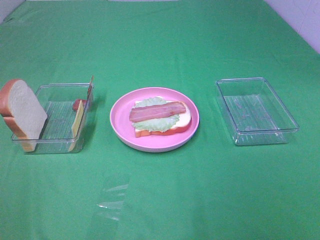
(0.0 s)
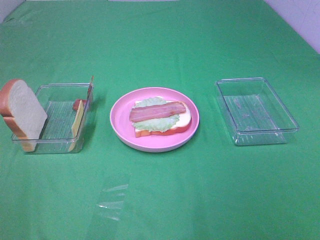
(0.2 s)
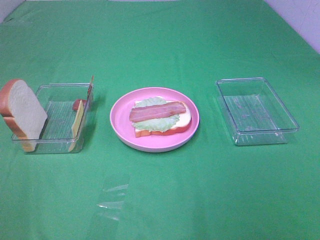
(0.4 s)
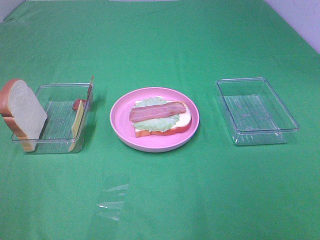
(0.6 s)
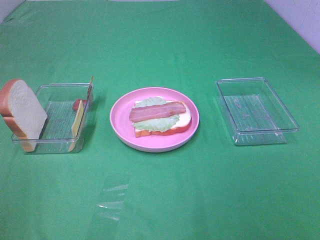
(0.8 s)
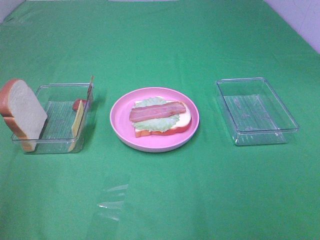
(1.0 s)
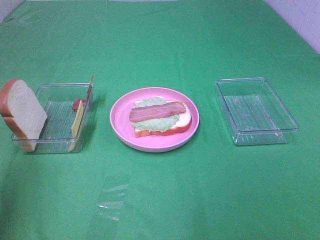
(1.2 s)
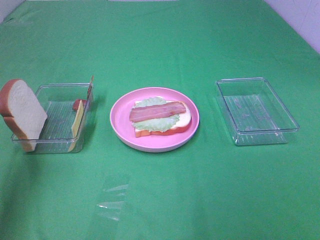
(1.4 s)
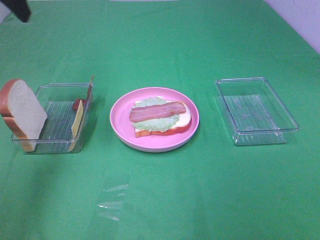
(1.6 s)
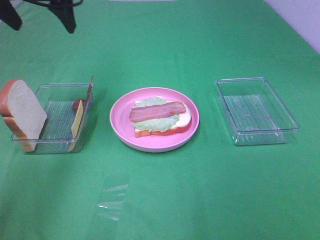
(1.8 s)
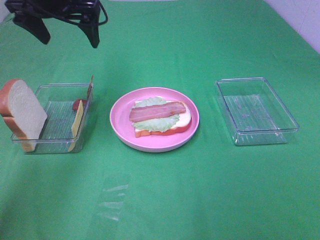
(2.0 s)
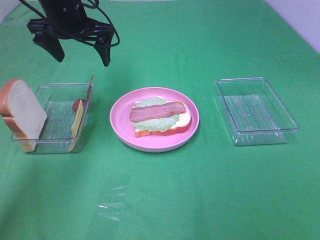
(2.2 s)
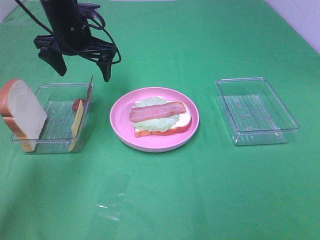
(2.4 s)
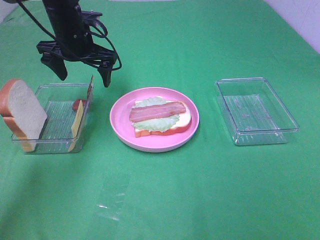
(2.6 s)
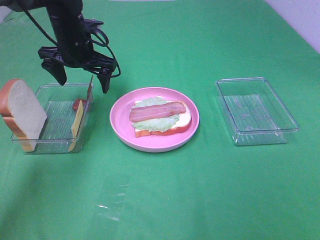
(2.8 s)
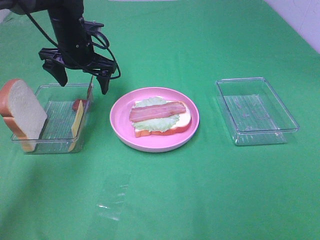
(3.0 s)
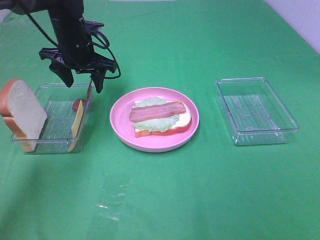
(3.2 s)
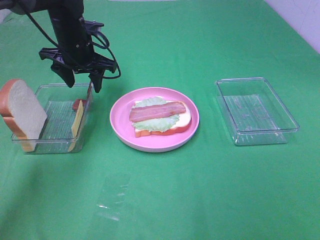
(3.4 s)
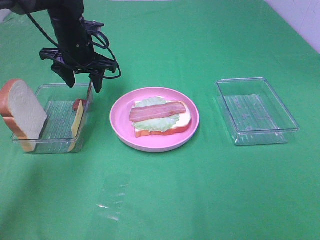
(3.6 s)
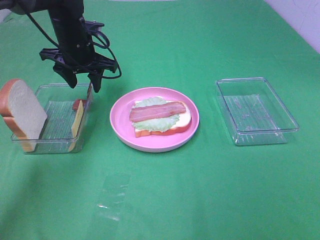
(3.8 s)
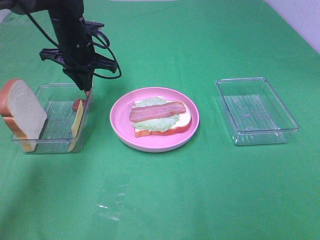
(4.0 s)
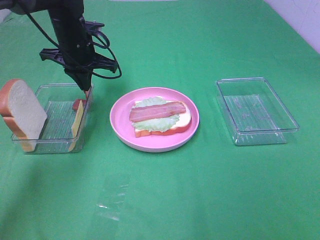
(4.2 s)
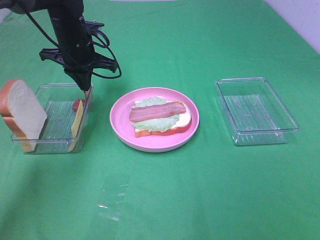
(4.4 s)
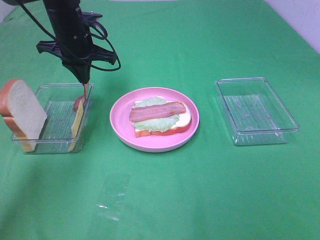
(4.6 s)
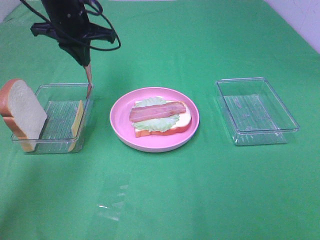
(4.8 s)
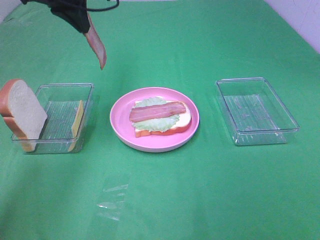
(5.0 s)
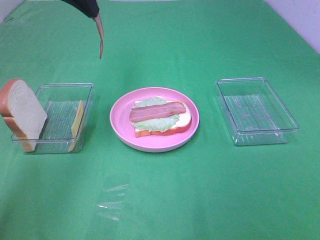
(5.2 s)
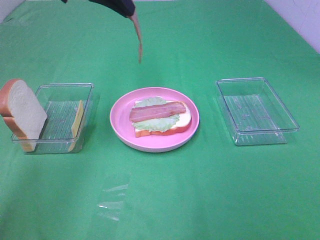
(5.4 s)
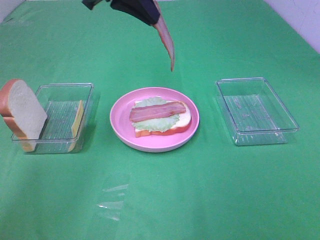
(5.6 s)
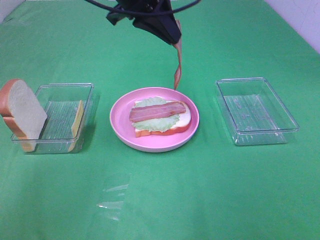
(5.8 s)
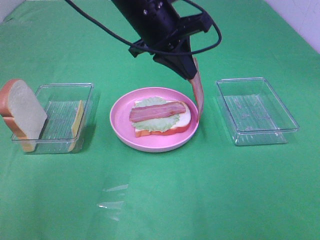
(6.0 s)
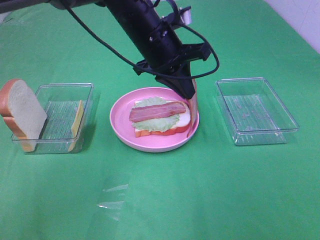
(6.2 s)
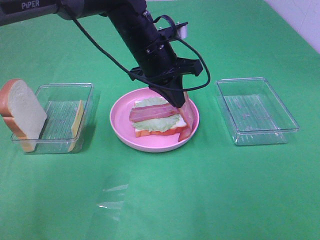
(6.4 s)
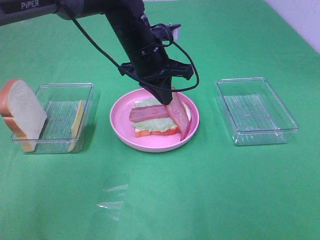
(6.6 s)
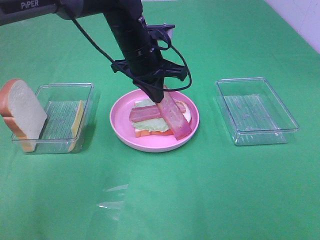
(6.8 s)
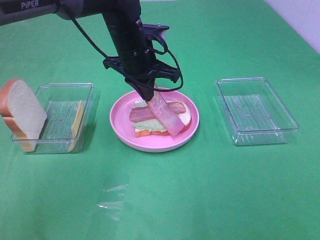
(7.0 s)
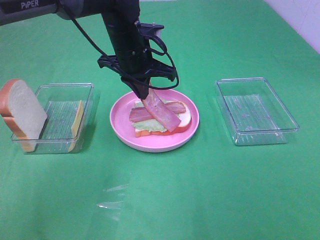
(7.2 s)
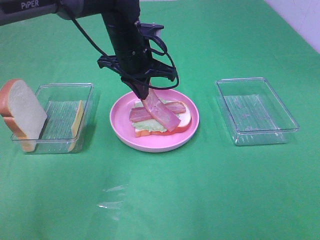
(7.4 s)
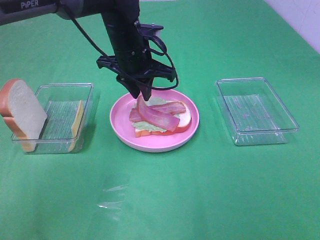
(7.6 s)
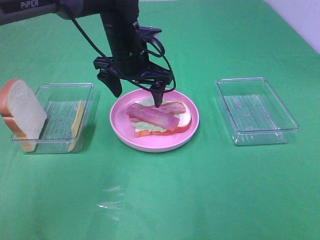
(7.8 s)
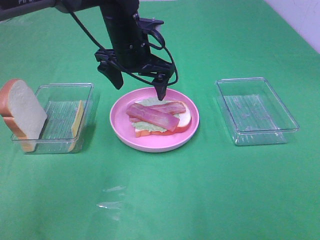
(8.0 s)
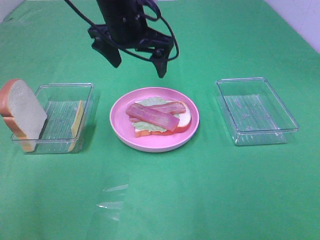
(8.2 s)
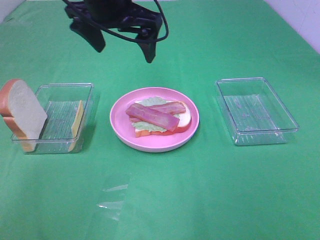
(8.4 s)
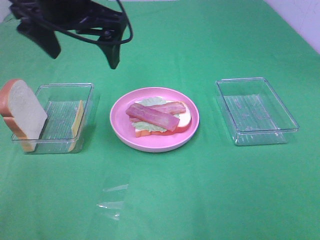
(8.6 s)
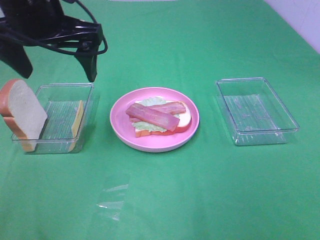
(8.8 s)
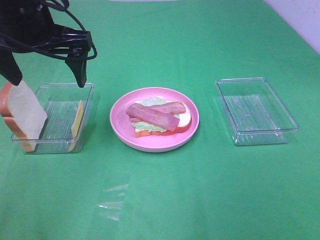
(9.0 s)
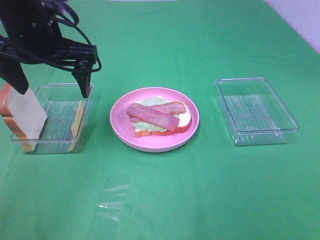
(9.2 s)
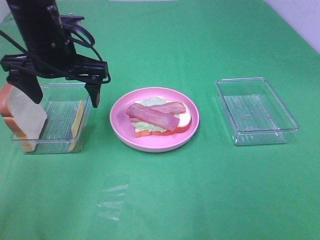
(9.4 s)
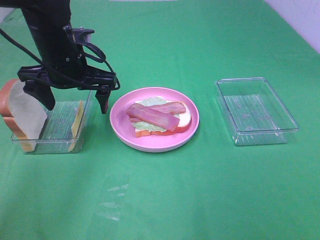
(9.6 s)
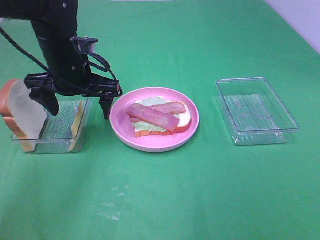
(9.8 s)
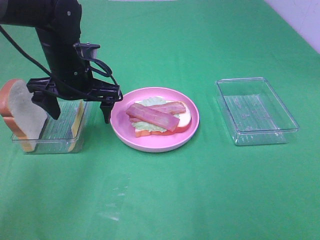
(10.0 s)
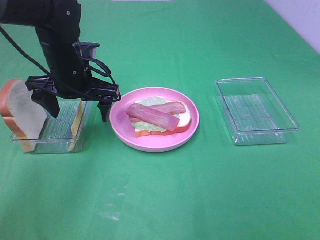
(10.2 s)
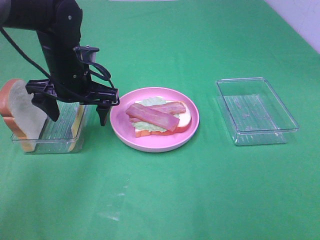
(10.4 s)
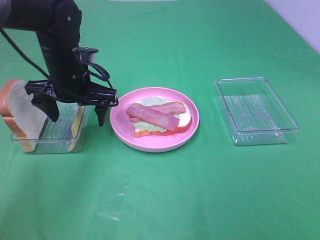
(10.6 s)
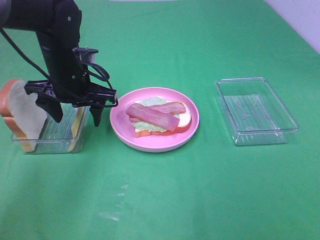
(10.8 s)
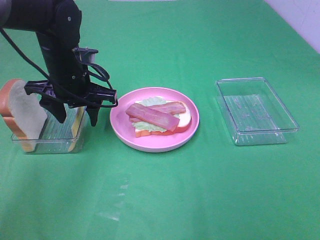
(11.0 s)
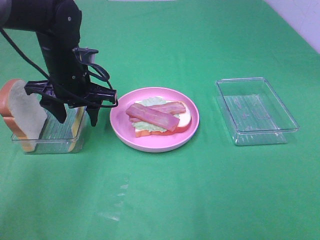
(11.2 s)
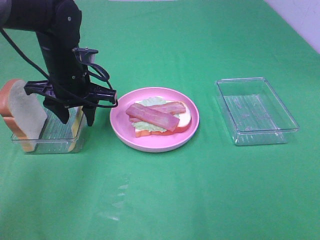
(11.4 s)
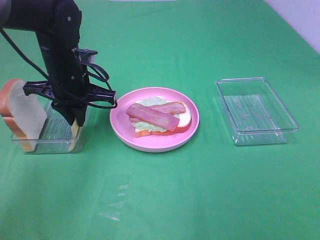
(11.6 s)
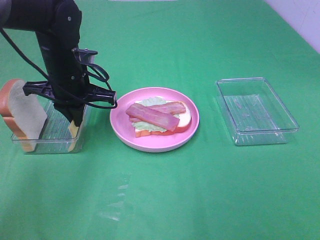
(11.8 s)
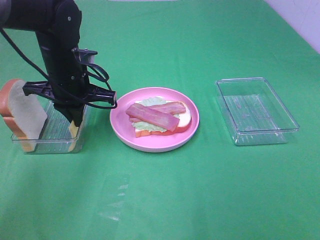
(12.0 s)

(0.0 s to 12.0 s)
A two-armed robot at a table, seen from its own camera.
Task of the whole recording: Make sandwiches.
Step, 0.0 s - 4.2 s: Left hand:grab the bacon.
Step, 4.4 s - 7.6 s: Left hand:place bacon on bacon.
Step, 7.8 s - 12.0 s: Left hand:grab the cheese slice.
0.0 s - 1.6 s: The left gripper goes roughly 35 cm forward.
1.6 s - 3.0 s: The left gripper shifts some 25 cm downward, forward and to the right.
3.0 s - 4.4 s: The left gripper closes up.
4.4 s - 6.0 s: The left gripper goes approximately 20 cm to the right, backward and upward.
6.0 s - 7.6 s: The left gripper shifts about 5 cm downward, and opens.
7.6 s - 9.0 s: The left gripper heads to the left, upward and backward, covering some 20 cm, and opens its fingers.
9.0 s - 10.4 s: The left gripper heads downward and forward, covering about 15 cm.
10.4 s - 12.0 s: The left gripper closes up.

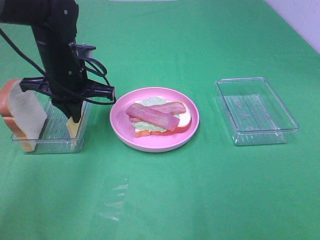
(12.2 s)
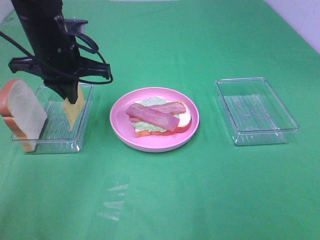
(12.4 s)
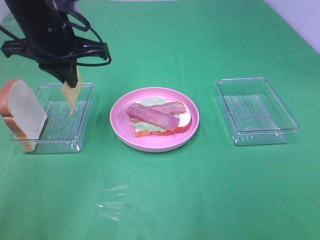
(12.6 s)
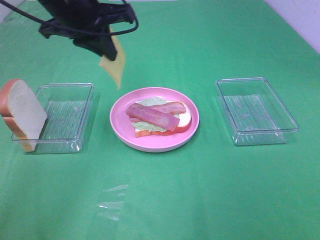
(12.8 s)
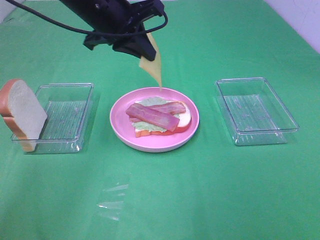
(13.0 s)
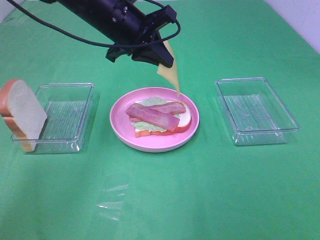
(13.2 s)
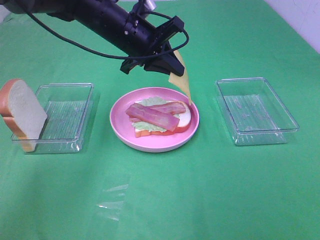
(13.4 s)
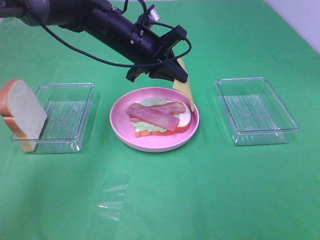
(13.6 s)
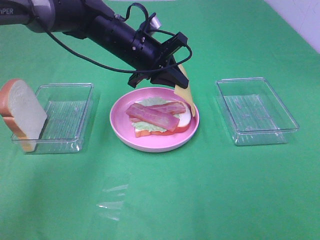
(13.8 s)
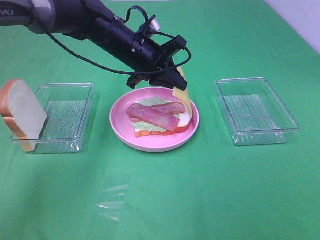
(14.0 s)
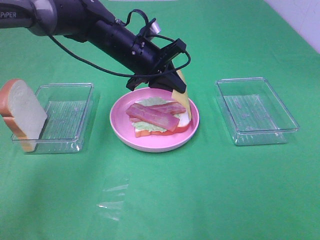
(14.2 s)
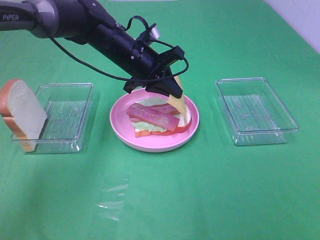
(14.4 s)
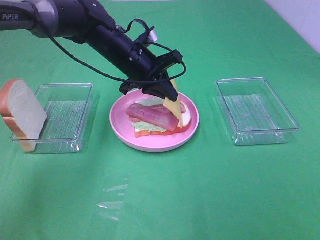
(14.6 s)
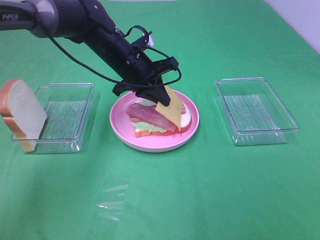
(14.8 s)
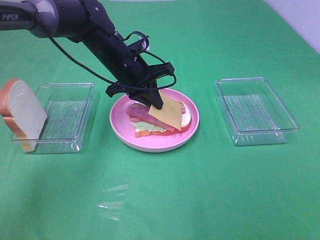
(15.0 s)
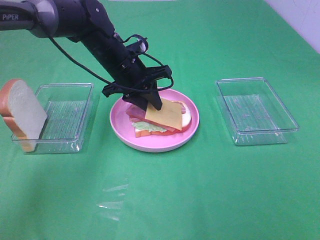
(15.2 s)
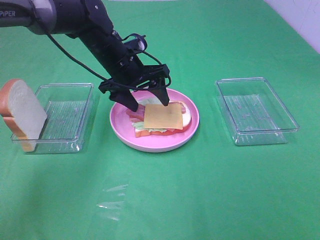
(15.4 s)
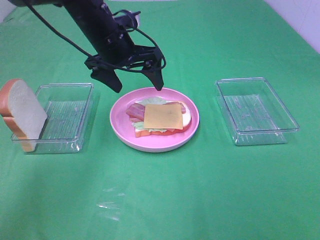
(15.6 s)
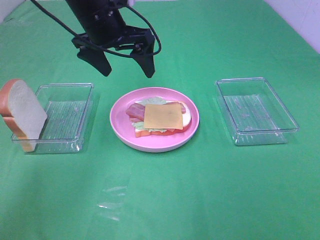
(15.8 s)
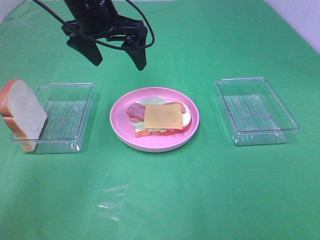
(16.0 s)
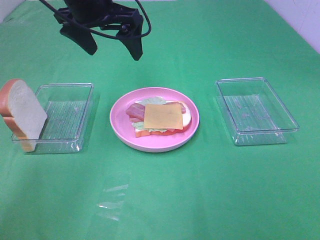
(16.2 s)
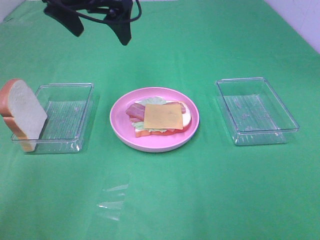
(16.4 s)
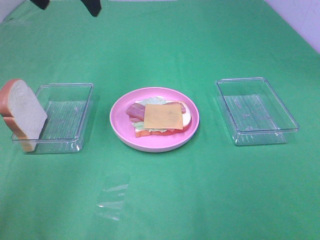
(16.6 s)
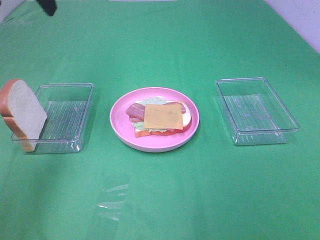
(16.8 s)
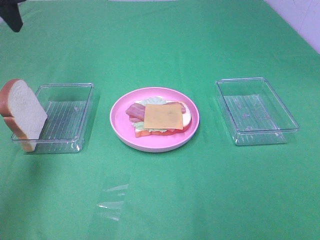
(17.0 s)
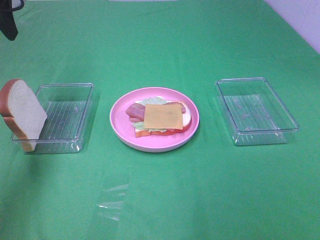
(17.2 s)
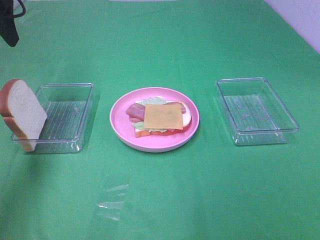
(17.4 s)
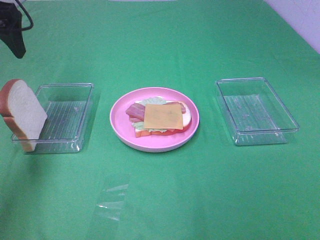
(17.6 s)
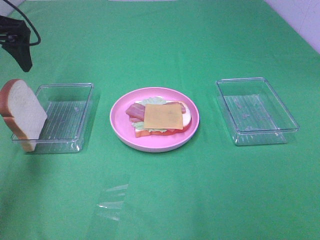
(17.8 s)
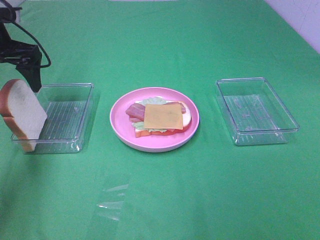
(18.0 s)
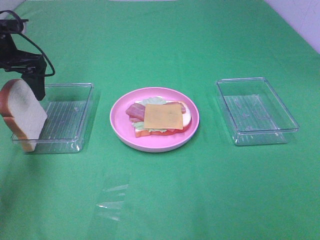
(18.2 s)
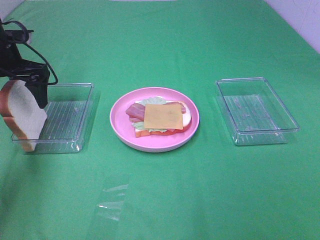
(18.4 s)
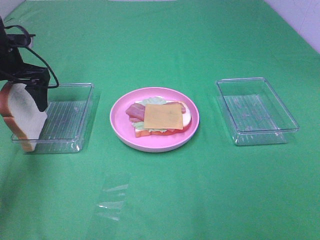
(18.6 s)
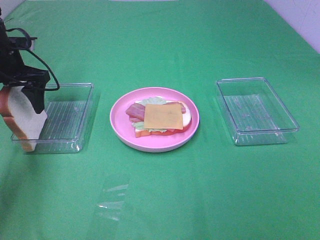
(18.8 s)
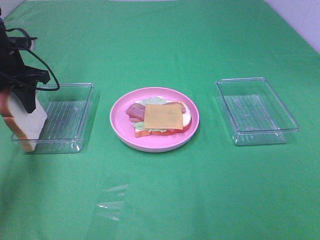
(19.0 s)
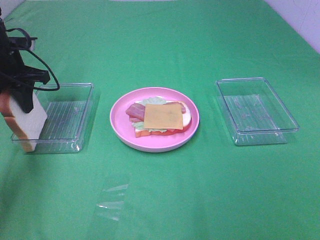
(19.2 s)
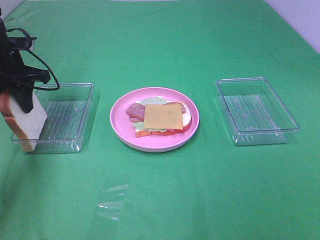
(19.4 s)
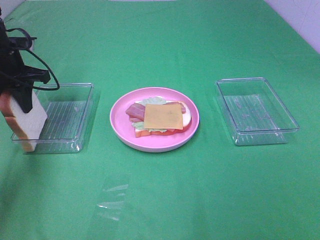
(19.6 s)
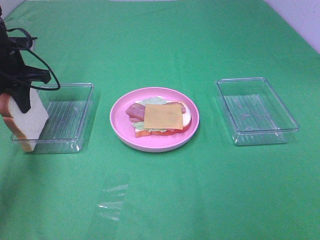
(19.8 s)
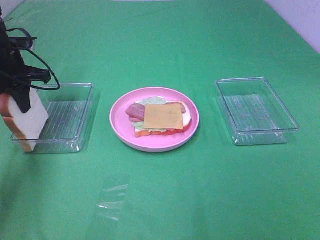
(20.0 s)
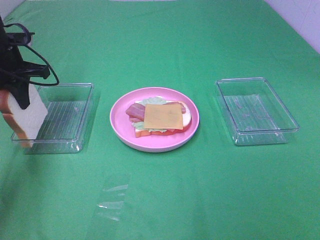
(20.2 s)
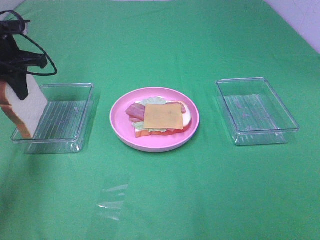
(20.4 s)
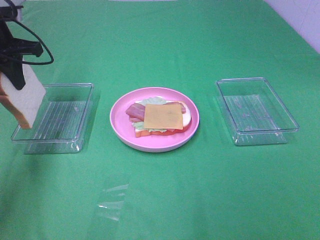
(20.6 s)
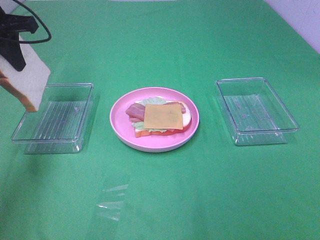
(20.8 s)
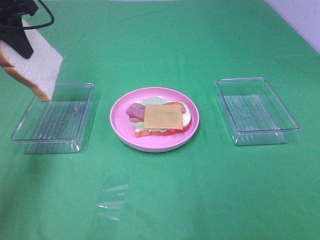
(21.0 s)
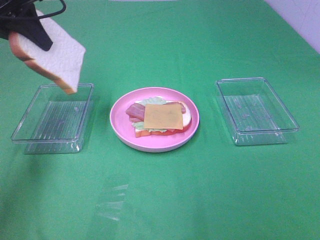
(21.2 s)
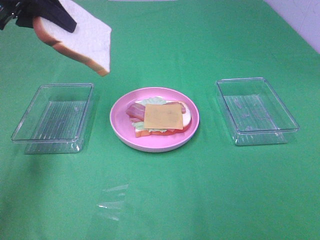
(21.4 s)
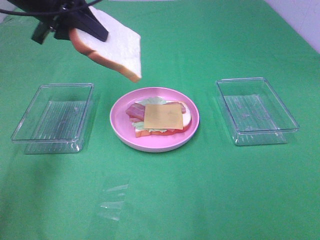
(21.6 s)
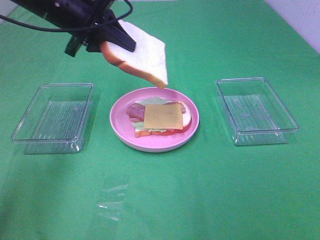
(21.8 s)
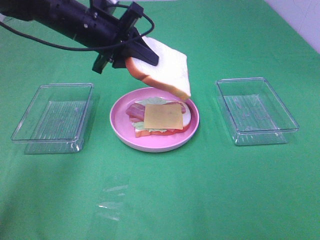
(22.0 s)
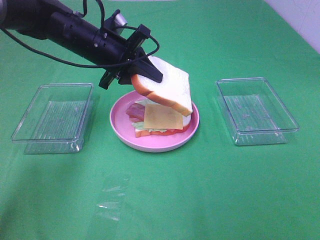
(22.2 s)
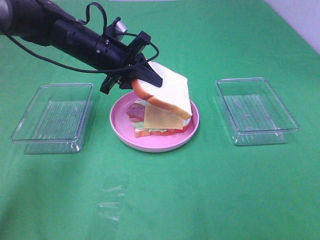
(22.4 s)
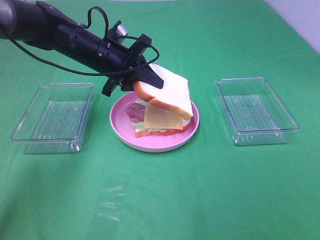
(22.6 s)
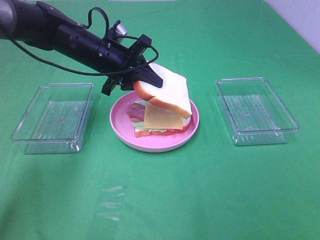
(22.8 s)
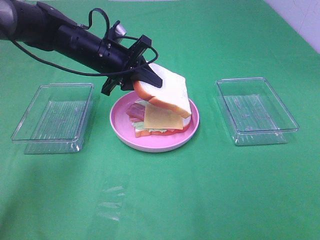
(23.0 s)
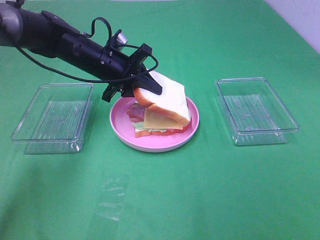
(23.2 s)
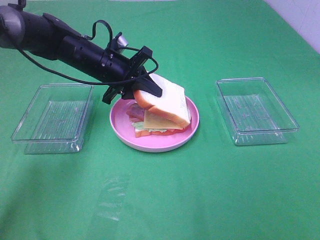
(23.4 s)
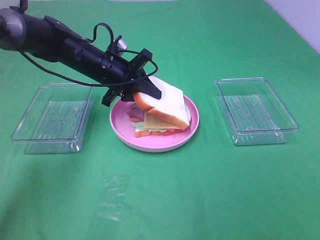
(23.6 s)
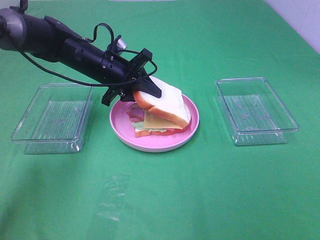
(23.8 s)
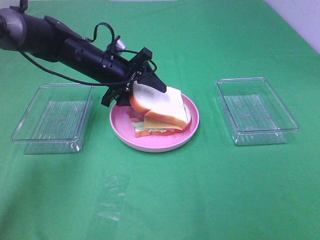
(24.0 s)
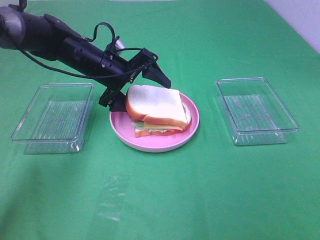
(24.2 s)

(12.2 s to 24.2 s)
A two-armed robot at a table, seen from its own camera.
Task of the whole recording: Make sandwiches.
Step, 12.2 s - 15.4 s: Left hand:place the cheese slice on top of the bacon.
Step, 15.6 s - 19.4 s: Left hand:grab the bread slice.
12.2 s - 13.8 s: The left gripper heads to the right and forward, covering some 10 cm, and travels upward and back again, about 10 cm each way.
15.2 s - 16.6 s: The left gripper moves upward and to the left, some 25 cm, and opens up.
16.6 s - 18.2 s: The left gripper travels downward and to the left by about 20 cm.
18.2 s - 19.8 s: The left gripper closes up.
19.8 s - 21.2 s: The left gripper moves upward, roughly 15 cm.
21.2 s - 22.6 s: The left gripper goes about 20 cm downward and to the right.
22.6 s - 24.2 s: The left gripper opens its fingers.
